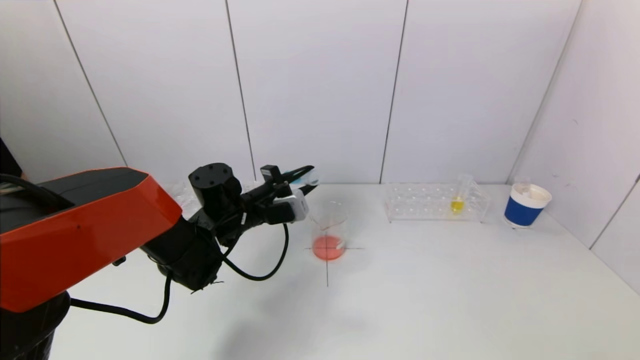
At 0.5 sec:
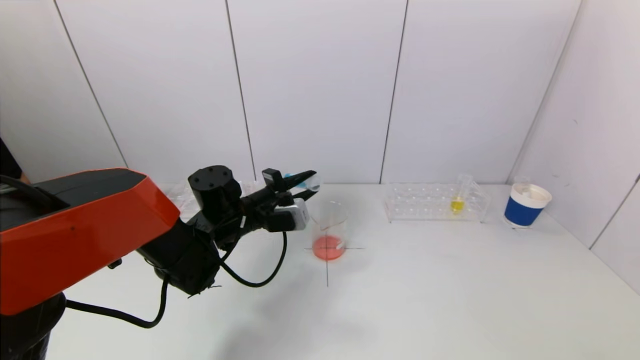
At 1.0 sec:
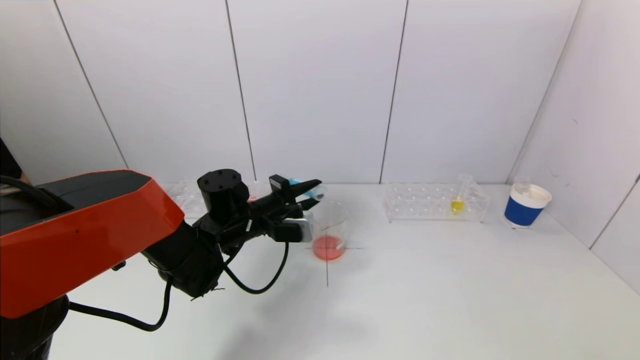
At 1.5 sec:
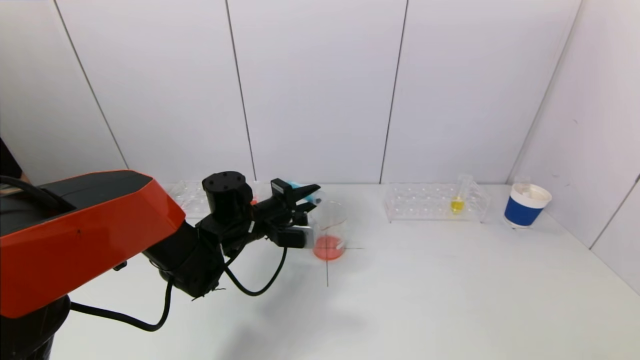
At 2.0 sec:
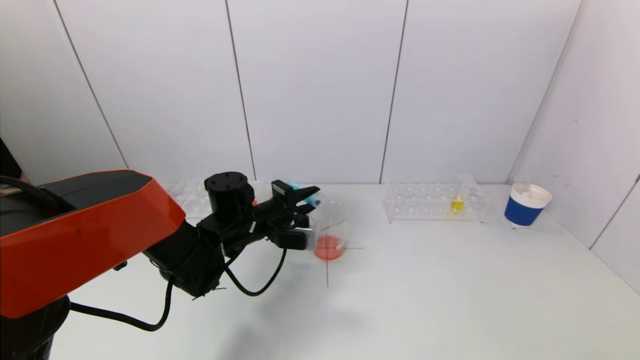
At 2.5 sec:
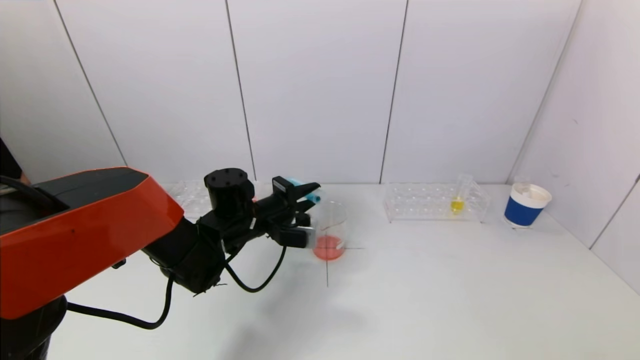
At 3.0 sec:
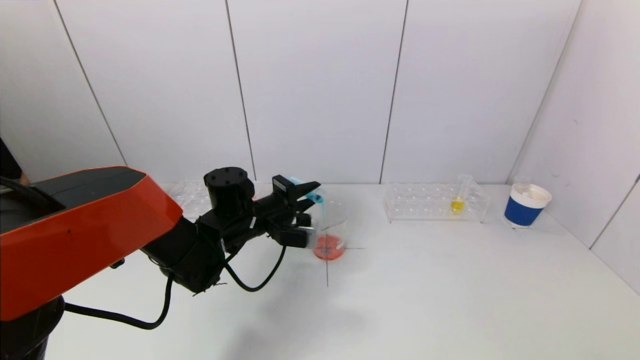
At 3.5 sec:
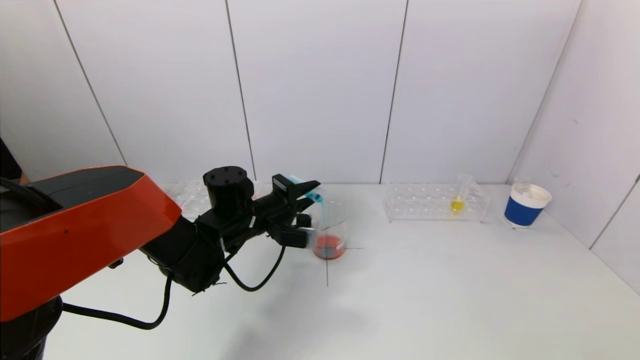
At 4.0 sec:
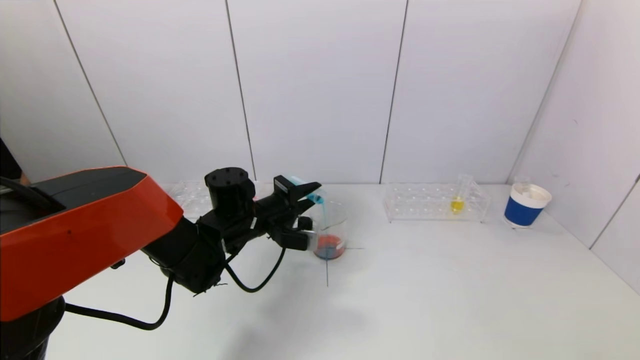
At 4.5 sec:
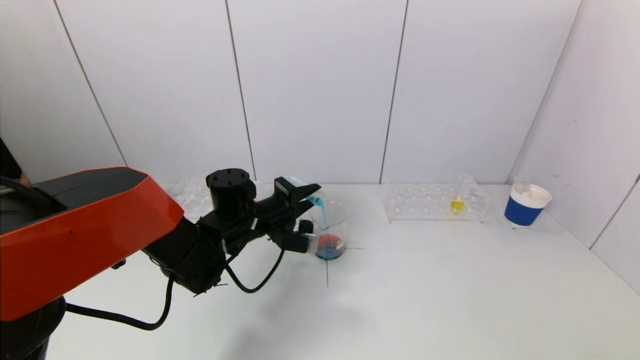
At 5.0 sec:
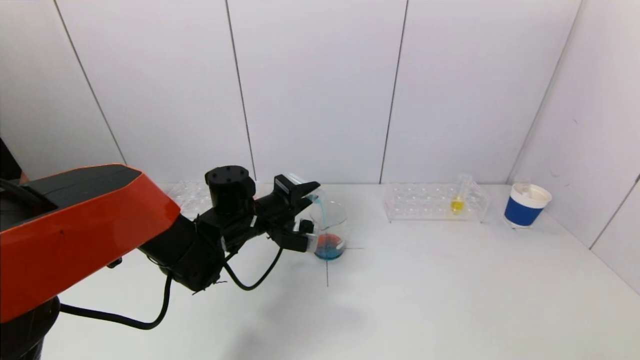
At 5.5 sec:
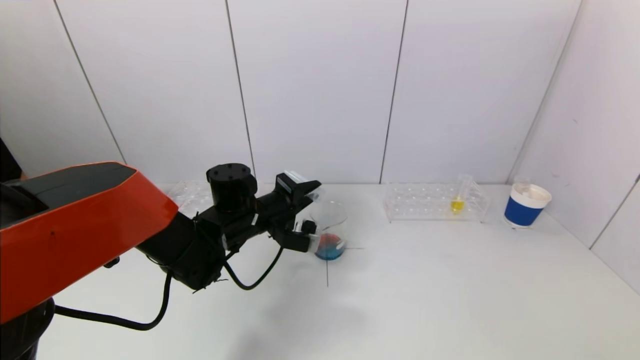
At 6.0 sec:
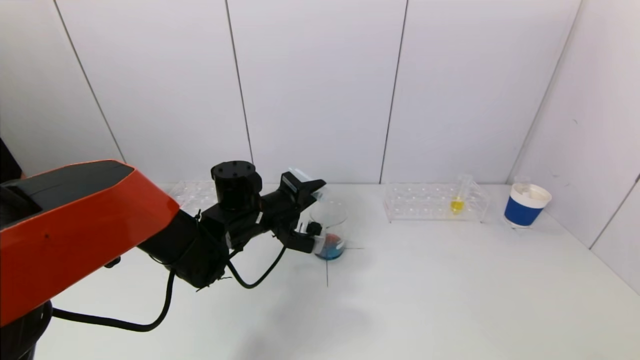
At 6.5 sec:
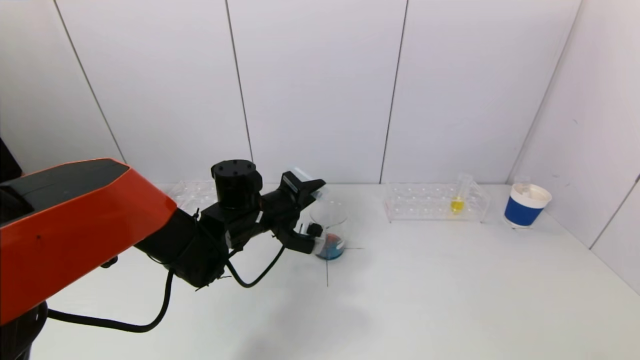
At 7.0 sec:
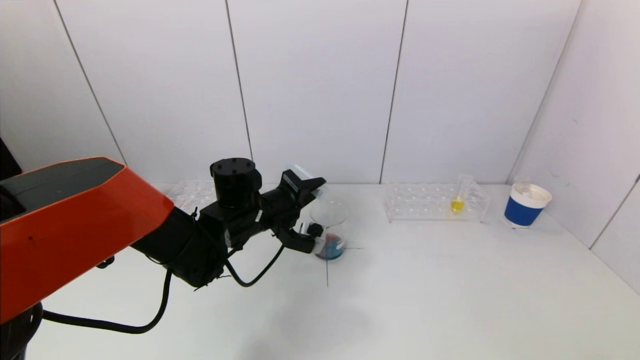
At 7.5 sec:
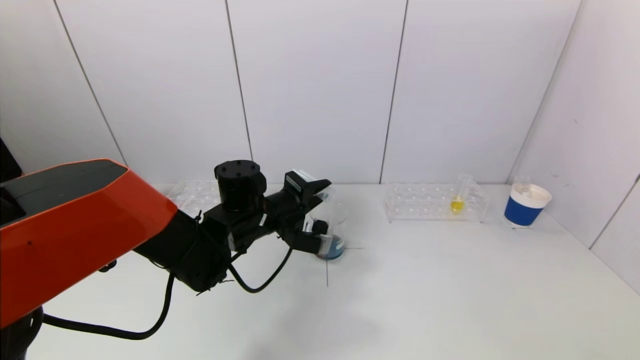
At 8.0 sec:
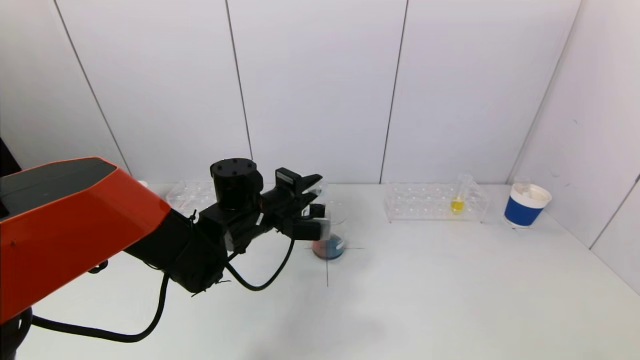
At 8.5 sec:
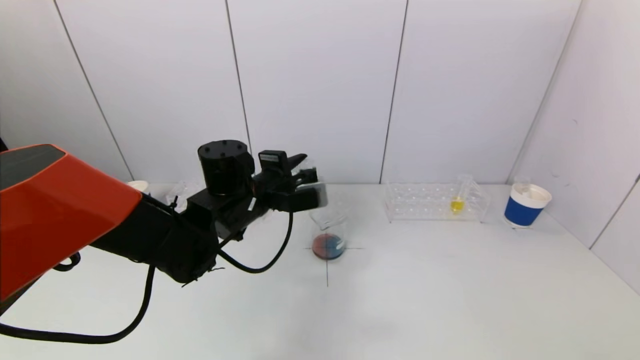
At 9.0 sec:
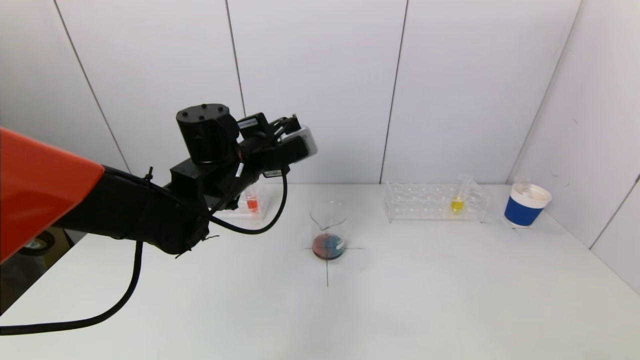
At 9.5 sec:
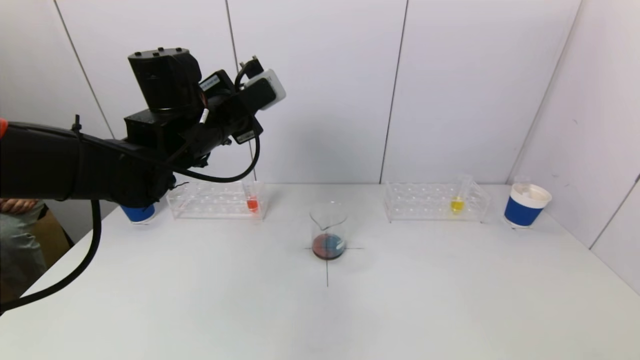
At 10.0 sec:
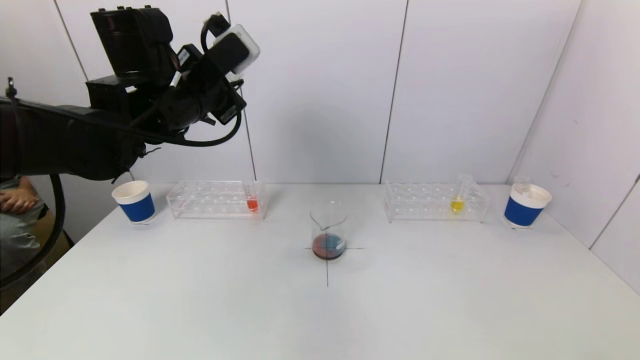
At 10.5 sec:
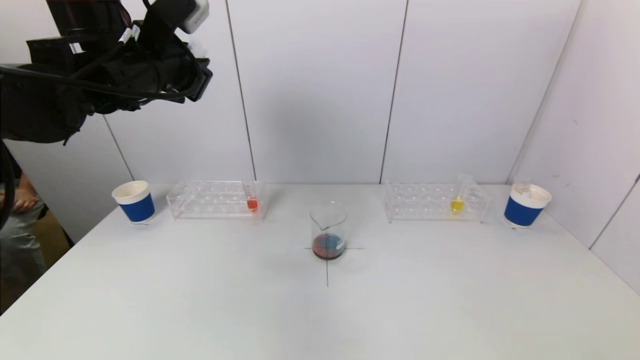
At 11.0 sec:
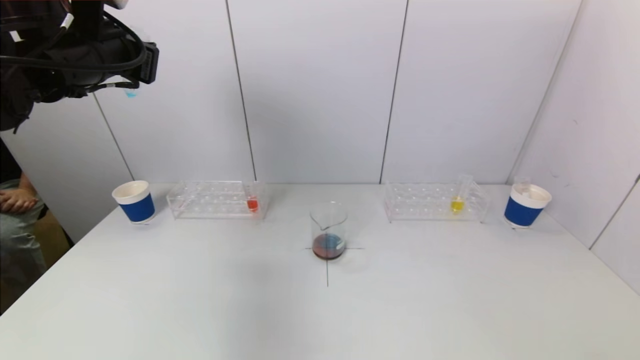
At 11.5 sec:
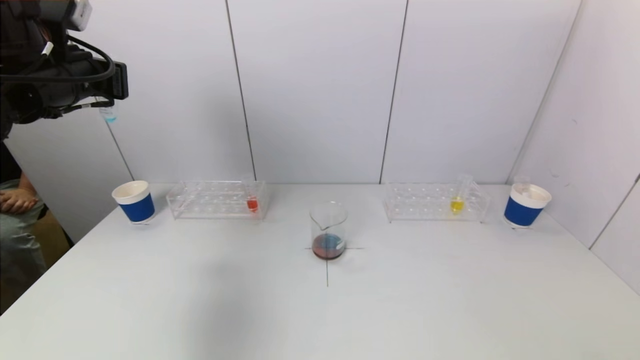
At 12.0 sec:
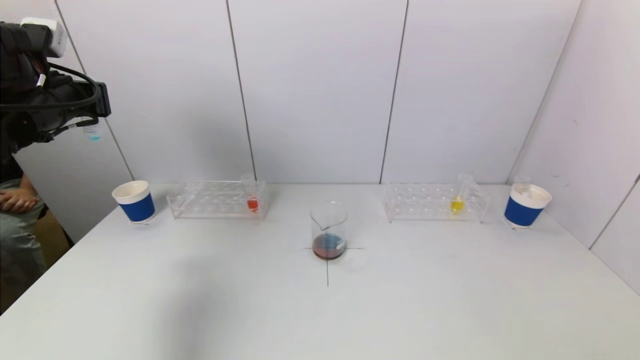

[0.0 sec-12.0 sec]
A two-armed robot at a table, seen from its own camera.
Task of the whole recording: pick up a test tube with pigment on left test tube rack and a test tube with pigment on right test tube rack by grippers and pour them into the beaker.
Step, 0.0 sec to 6.0 sec: Pour the blue reagent into the graduated cylinder with the left gripper.
0.0 sec to 2.0 sec: The grippers make only small movements.
2.0 sec to 6.0 sec: The grippers stay close to where they were, moving slightly.
6.0 sec to 8.0 sec: The grippers stay close to where they were, moving slightly.
8.0 sec to 10.0 sec: The left gripper moves upward and to the left, approximately 20 cm.
10.0 sec to 12.0 sec: The left gripper goes approximately 20 cm to the left.

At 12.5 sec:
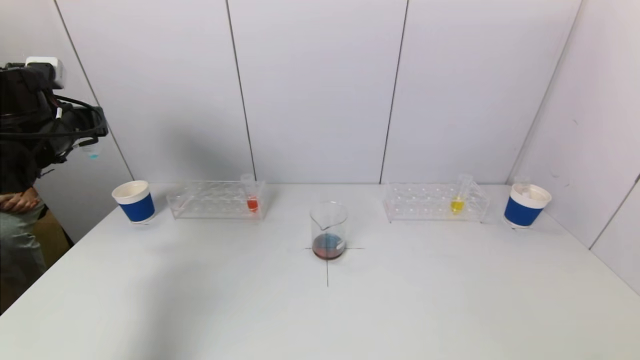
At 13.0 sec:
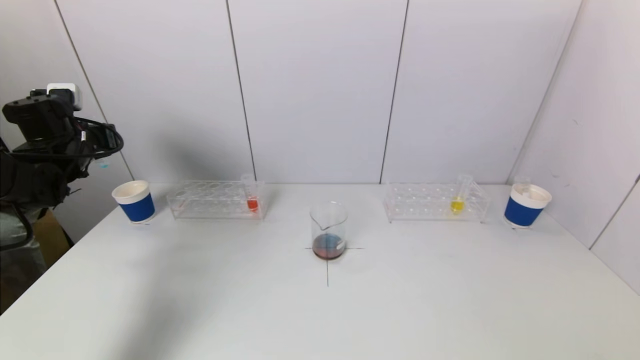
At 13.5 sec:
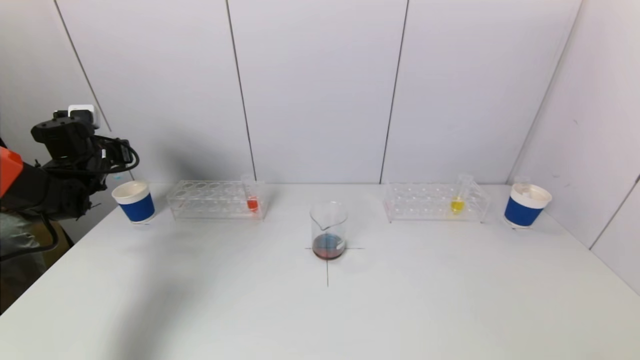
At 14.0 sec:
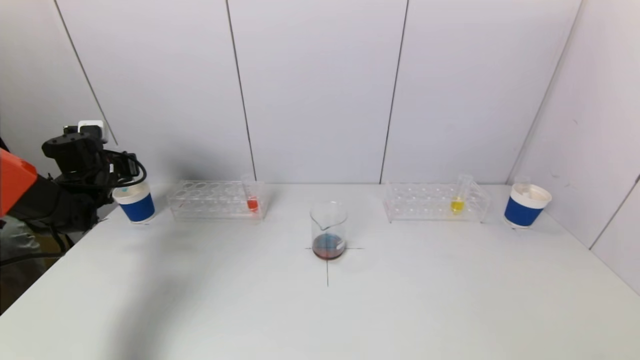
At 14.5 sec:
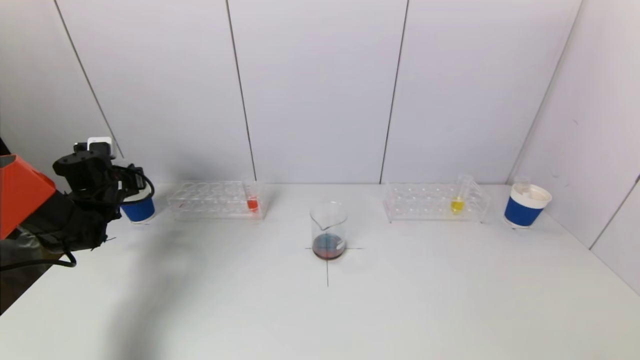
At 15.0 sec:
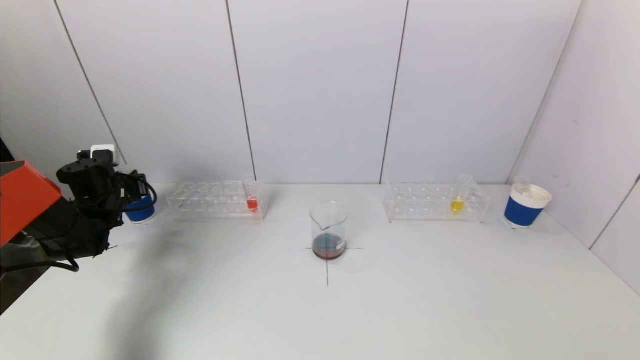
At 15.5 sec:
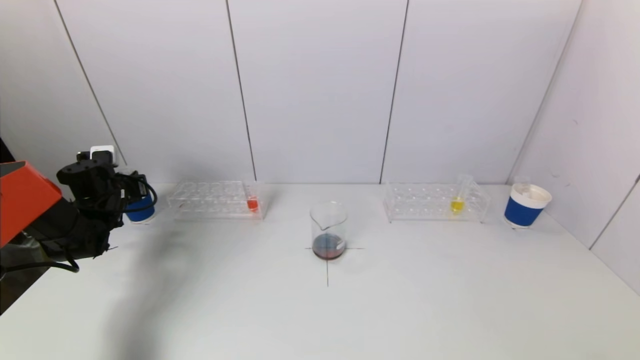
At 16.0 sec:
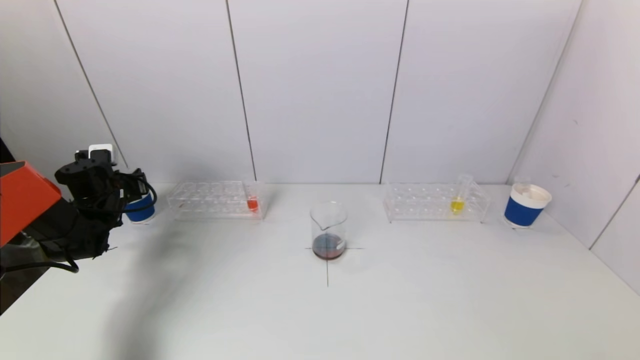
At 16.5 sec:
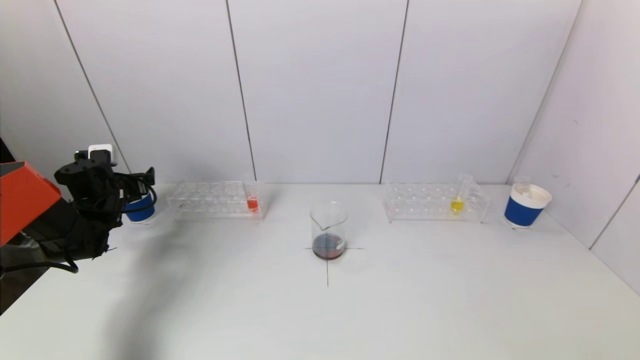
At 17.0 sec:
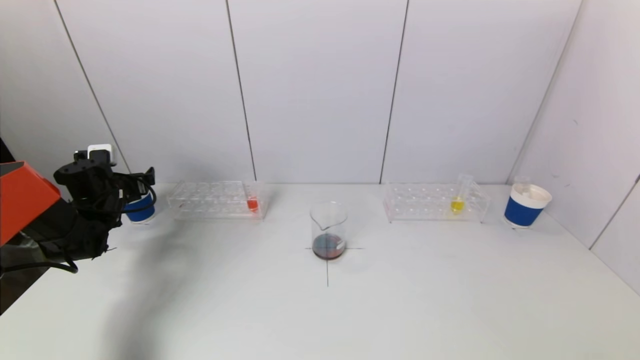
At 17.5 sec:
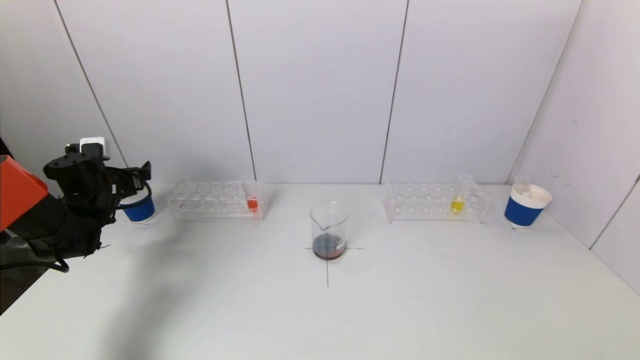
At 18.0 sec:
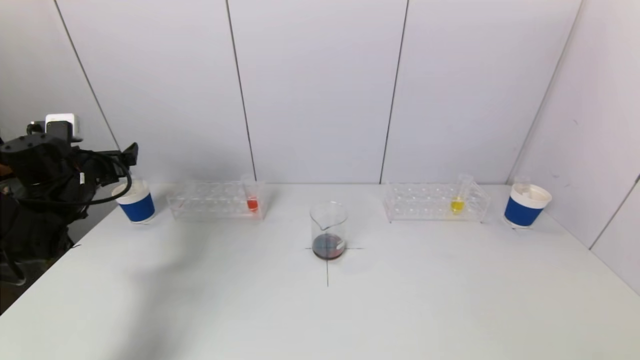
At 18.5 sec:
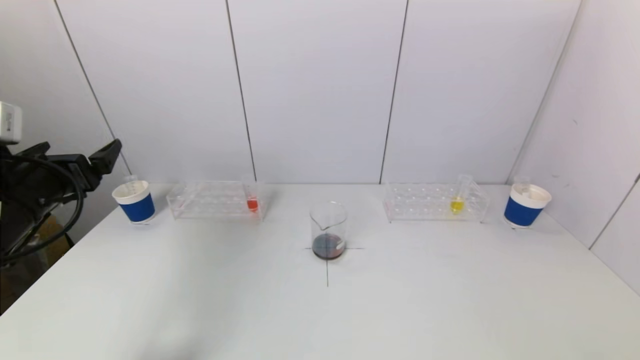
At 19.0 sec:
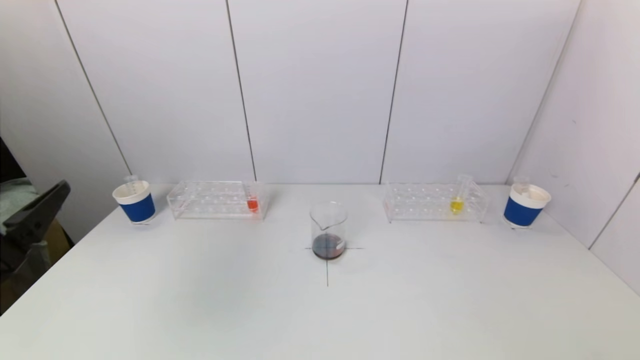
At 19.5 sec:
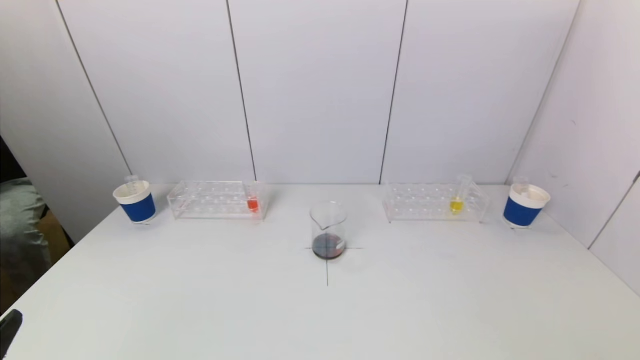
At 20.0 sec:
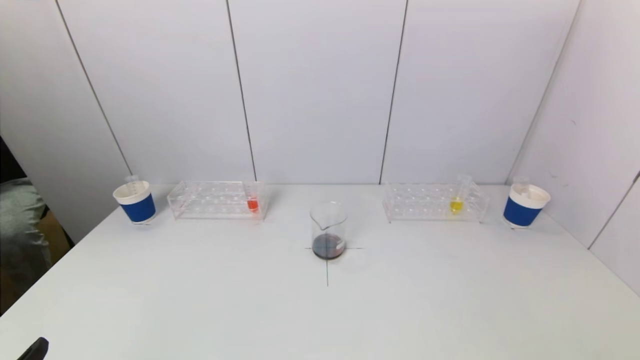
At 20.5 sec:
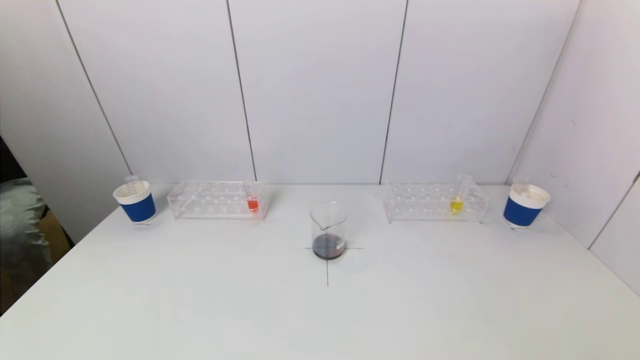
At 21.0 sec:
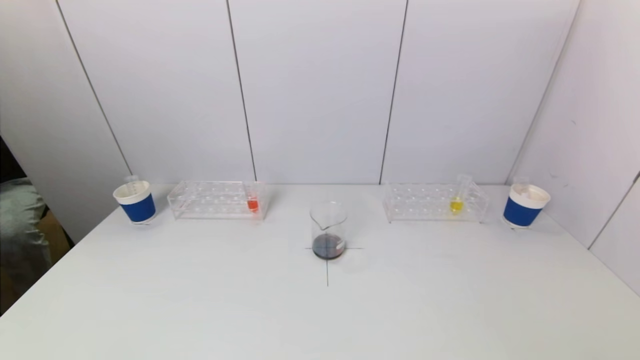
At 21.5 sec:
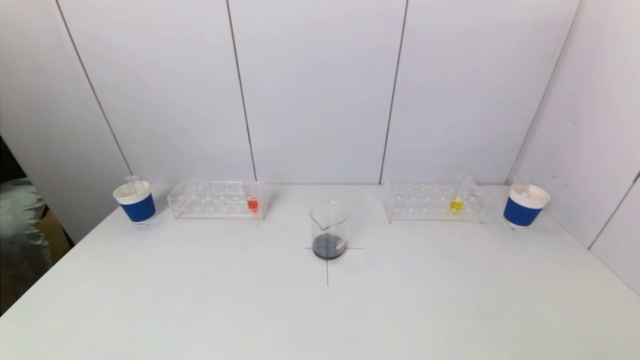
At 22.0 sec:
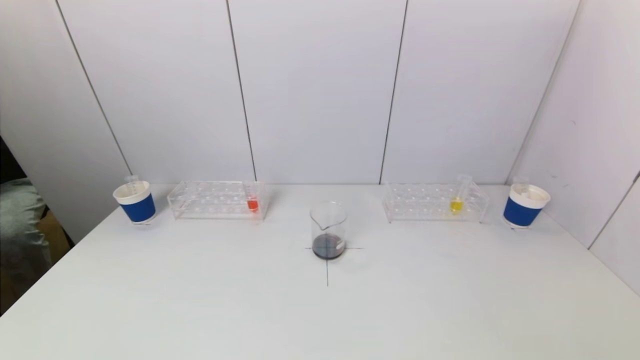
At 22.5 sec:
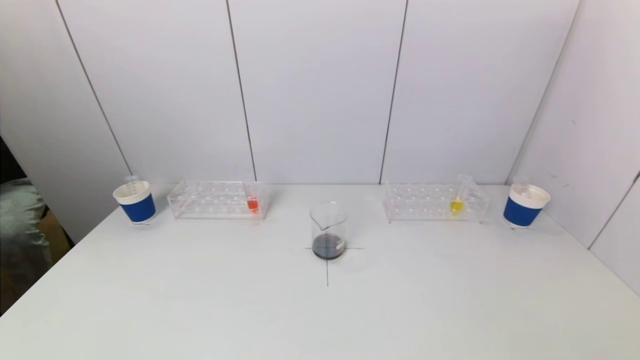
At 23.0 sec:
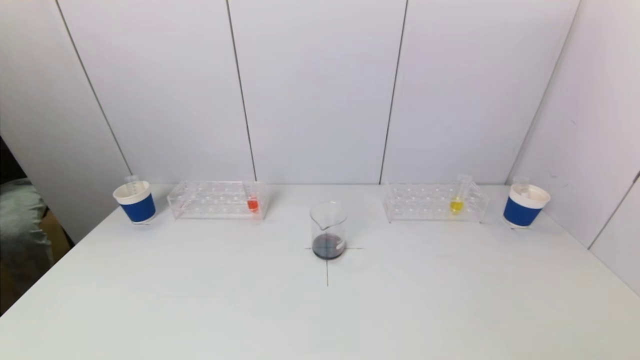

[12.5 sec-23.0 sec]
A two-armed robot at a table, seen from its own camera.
Task of the whole recording: pick up a test tube with pigment on left test tube rack and a test tube with pigment on right test tube rack by grippers and pour them into the beaker.
Step, 12.5 sec to 16.0 sec: Place the test tube into the paper cup with the left gripper.
12.5 sec to 14.5 sec: The left gripper shifts approximately 15 cm downward.
14.5 sec to 16.5 sec: The left gripper opens.
16.5 sec to 19.0 sec: The left gripper goes about 30 cm backward.
19.0 sec to 21.0 sec: The left gripper heads downward and backward, covering roughly 15 cm.
